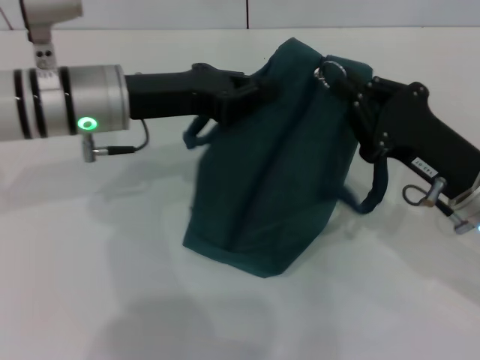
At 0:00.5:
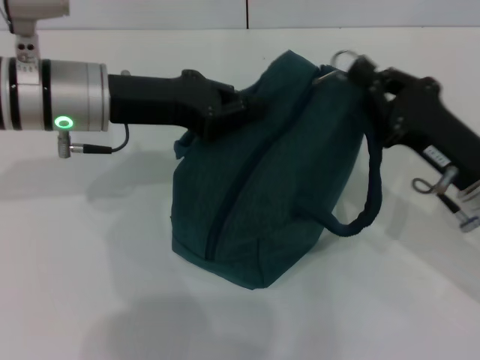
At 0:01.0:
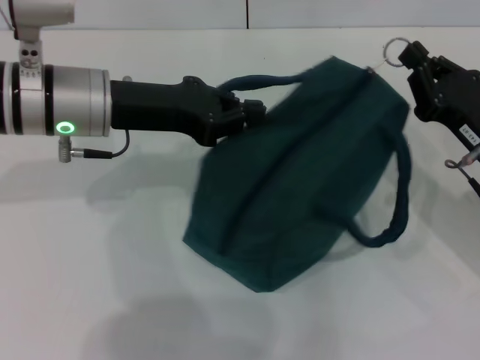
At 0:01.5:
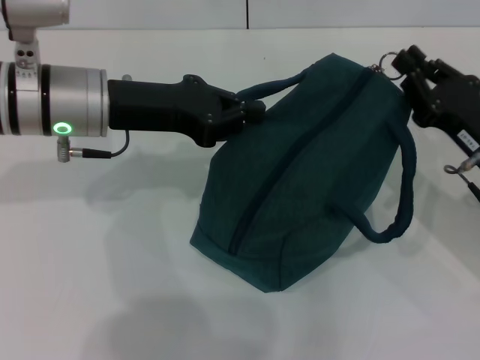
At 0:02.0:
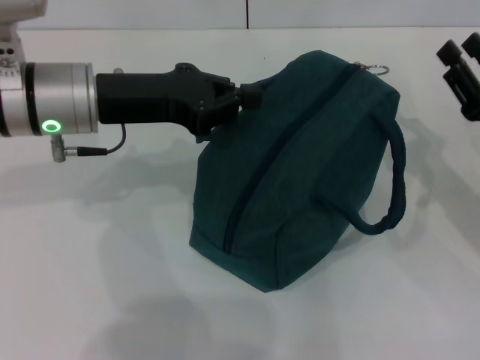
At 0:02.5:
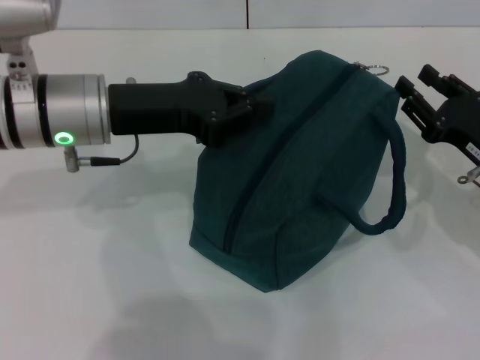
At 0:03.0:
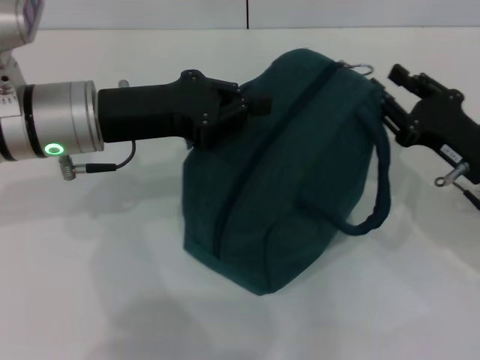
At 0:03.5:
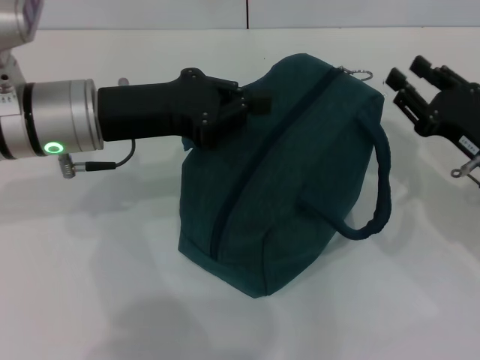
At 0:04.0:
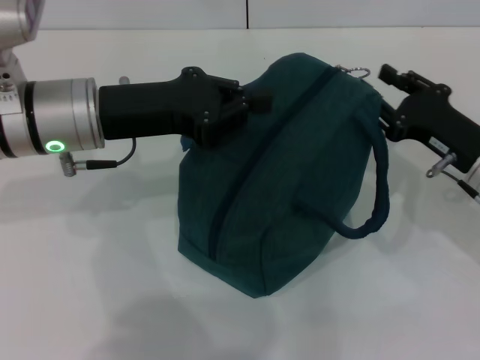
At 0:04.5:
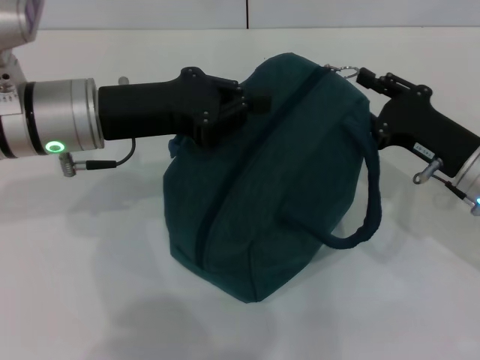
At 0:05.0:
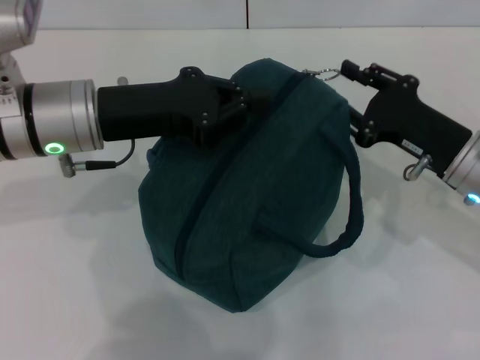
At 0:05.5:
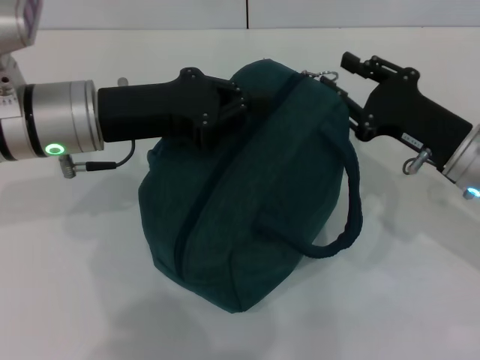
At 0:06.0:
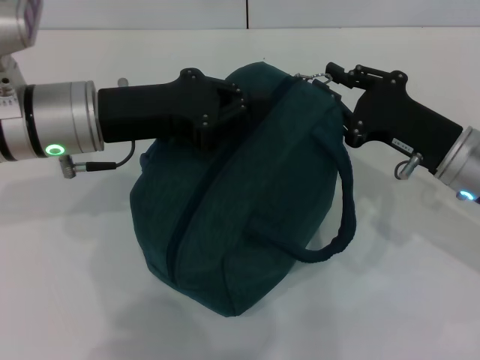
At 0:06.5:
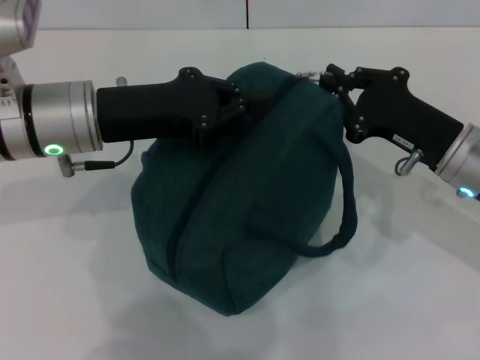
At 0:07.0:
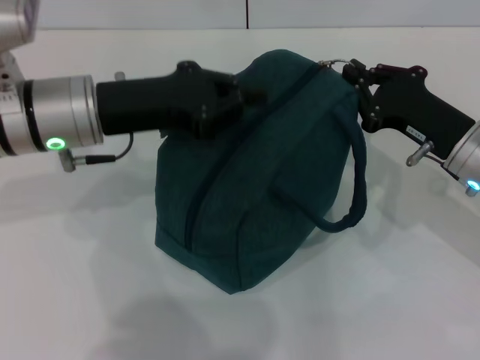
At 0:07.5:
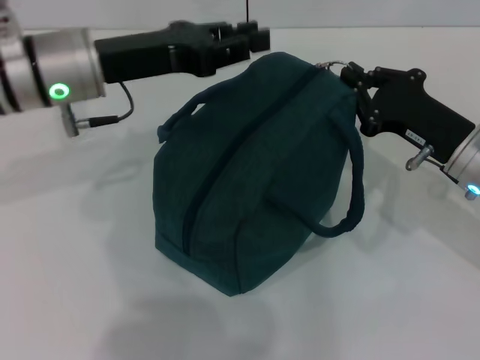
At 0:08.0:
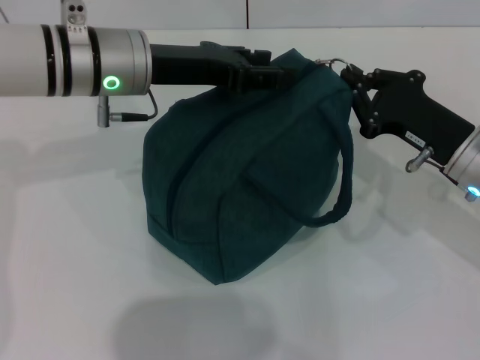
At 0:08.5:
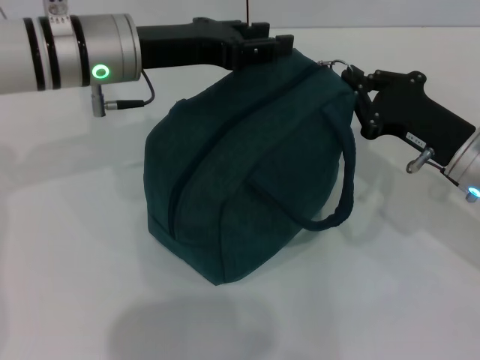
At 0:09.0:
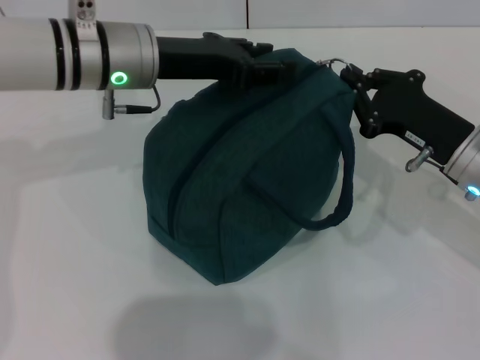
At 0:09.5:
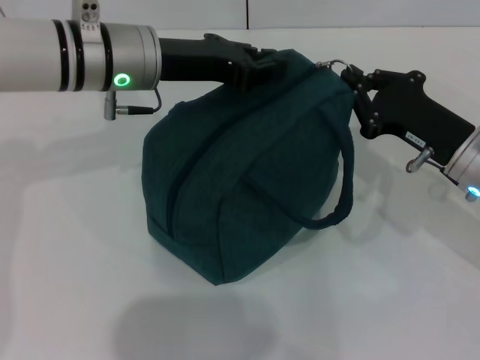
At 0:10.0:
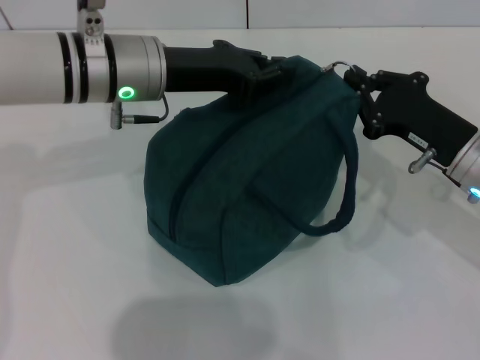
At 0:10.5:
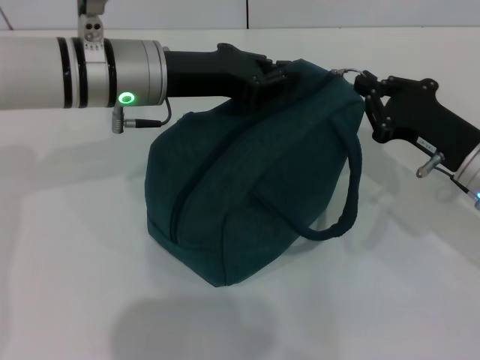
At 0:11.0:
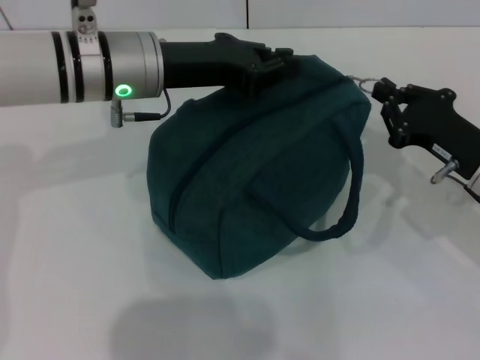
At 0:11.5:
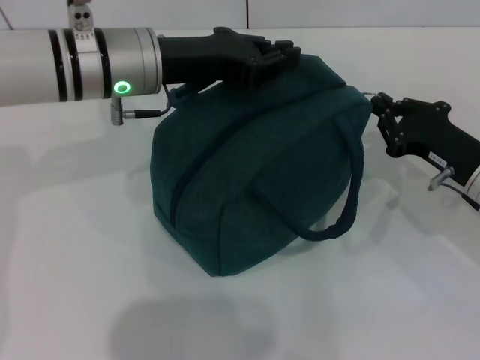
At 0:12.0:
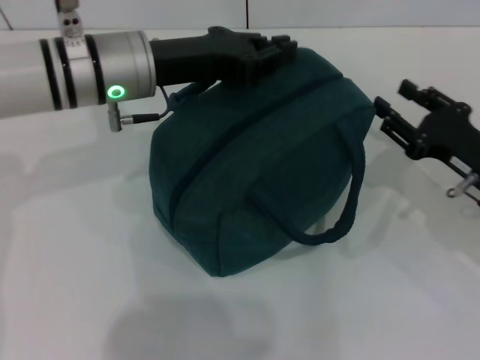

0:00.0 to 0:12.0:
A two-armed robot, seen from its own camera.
Step, 0:00.0 to 0:11.5: Zip up the lunch bag with your right hand.
0:00.0 to 0:02.0: The right gripper shifts about 5 cm to the right, and opens its fingers.
0:02.0 to 0:04.0: The right gripper moves about 5 cm.
0:04.0 to 0:06.0: The grippers make only small movements.
0:06.0 to 0:08.0: The right gripper closes. The left gripper is displaced forward by about 5 cm, and opens its fingers.
0:08.0 to 0:10.0: The left gripper closes its fingers.
0:10.0 to 0:12.0: The right gripper opens up.

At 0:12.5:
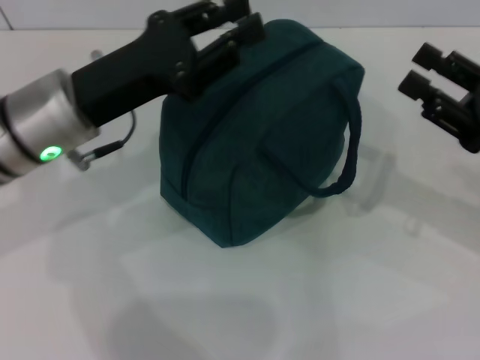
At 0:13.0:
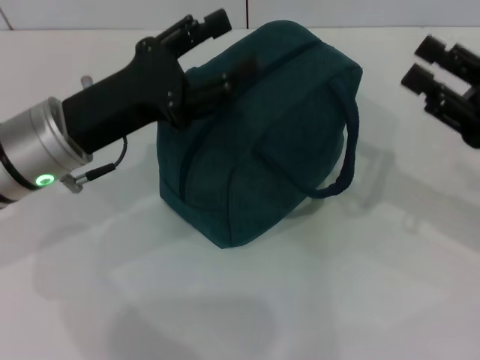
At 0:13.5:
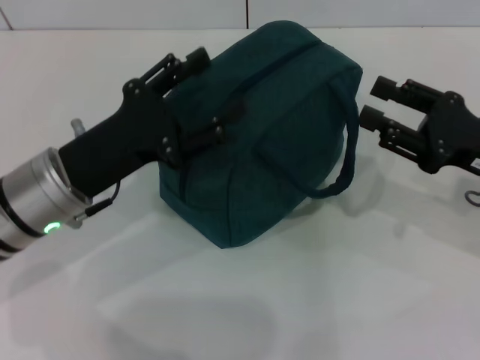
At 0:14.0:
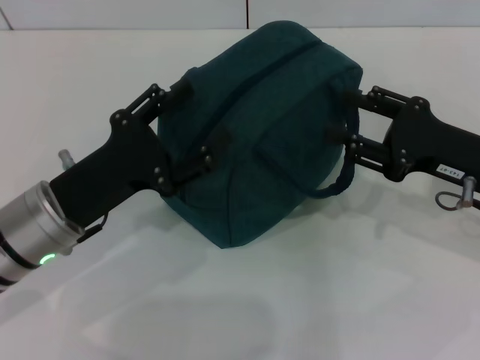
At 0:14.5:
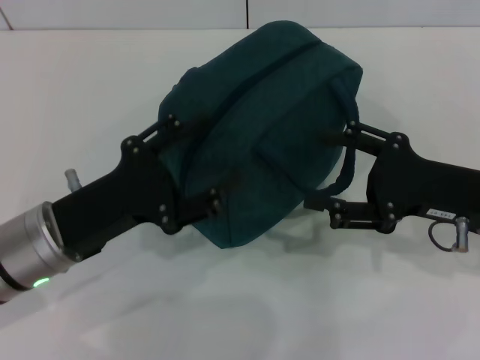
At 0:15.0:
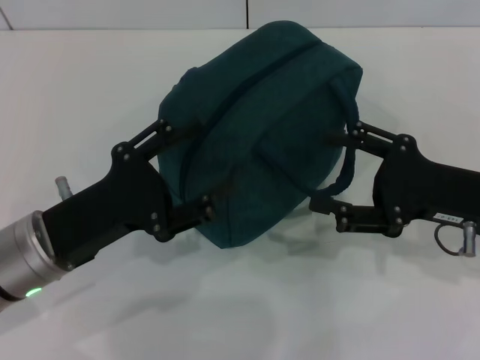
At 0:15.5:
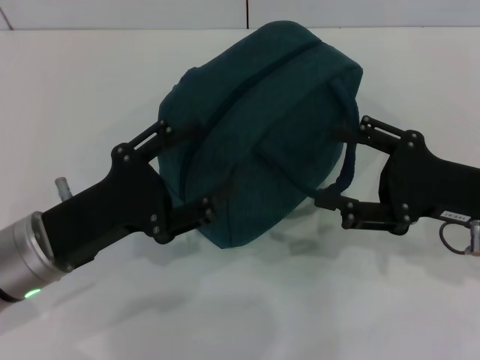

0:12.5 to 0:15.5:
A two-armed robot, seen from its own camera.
0:12.5 to 0:14.0: The left gripper goes roughly 10 cm downward and backward, and opens.
0:14.0 to 0:15.5: The grippers move only a little.

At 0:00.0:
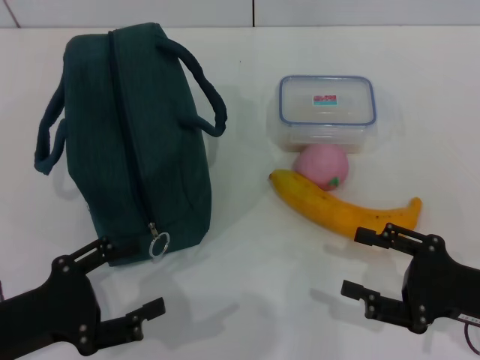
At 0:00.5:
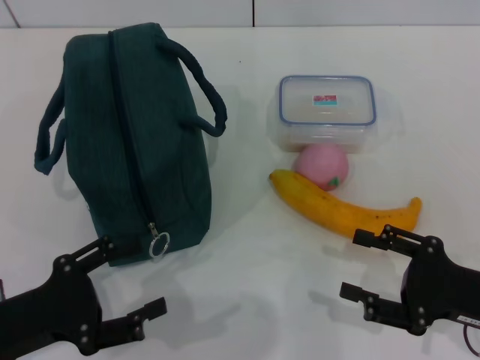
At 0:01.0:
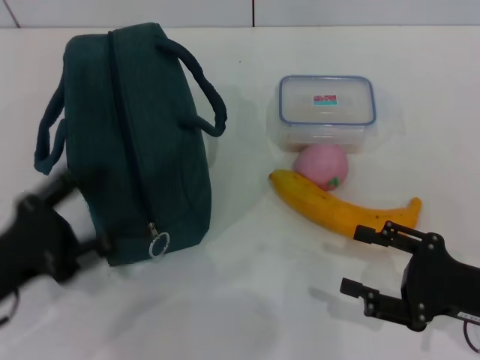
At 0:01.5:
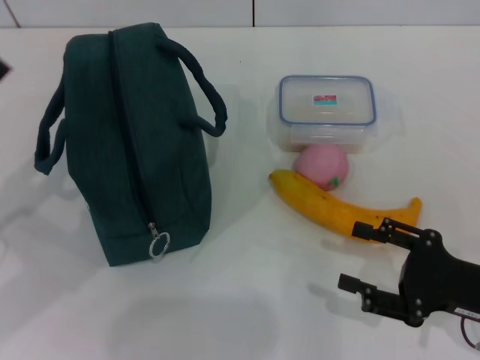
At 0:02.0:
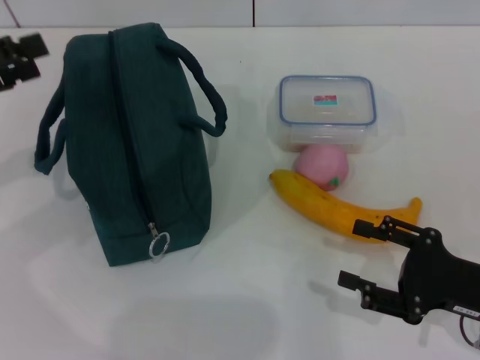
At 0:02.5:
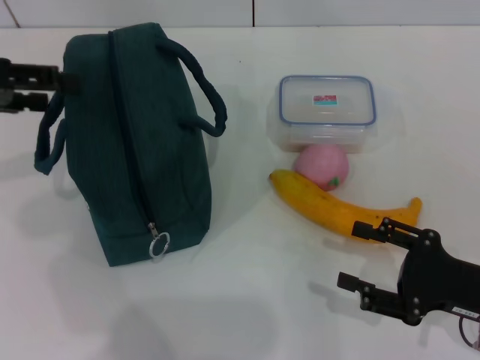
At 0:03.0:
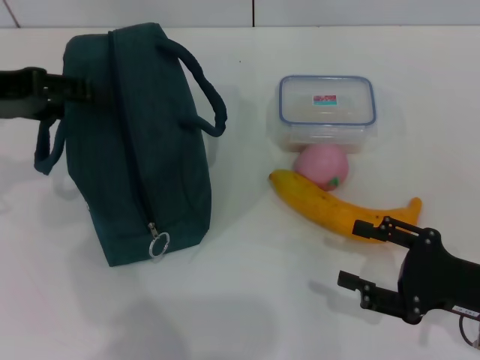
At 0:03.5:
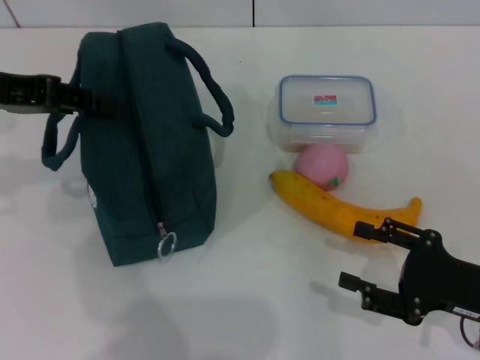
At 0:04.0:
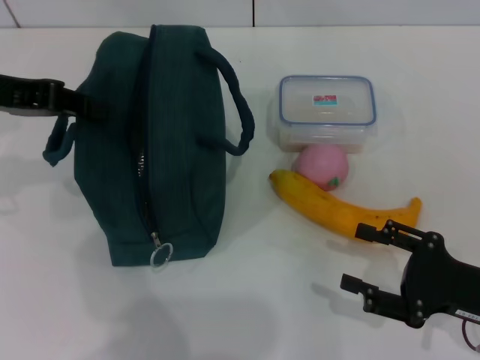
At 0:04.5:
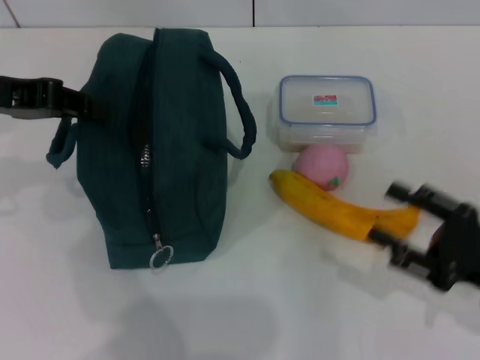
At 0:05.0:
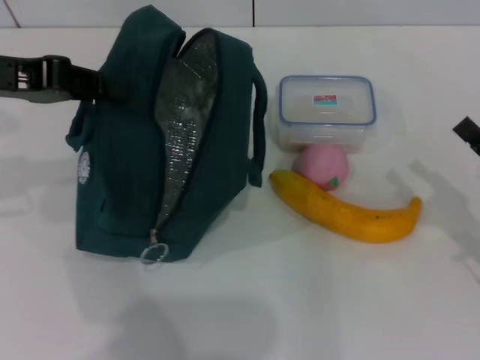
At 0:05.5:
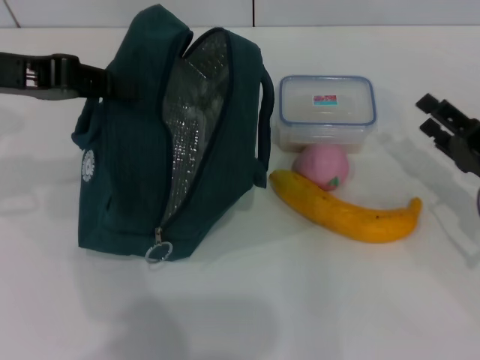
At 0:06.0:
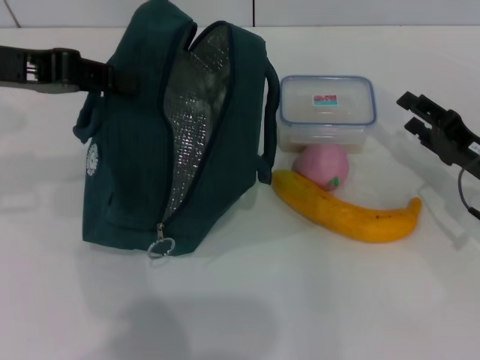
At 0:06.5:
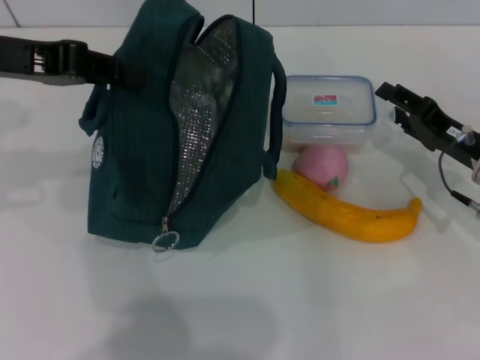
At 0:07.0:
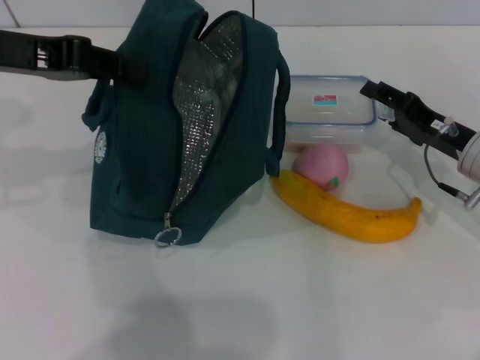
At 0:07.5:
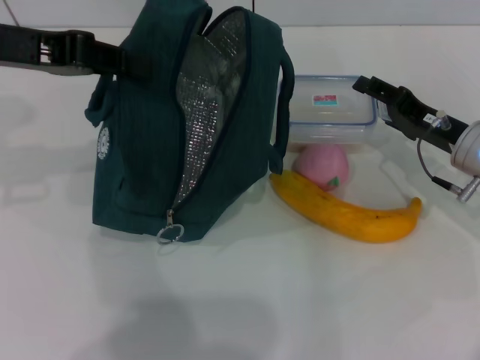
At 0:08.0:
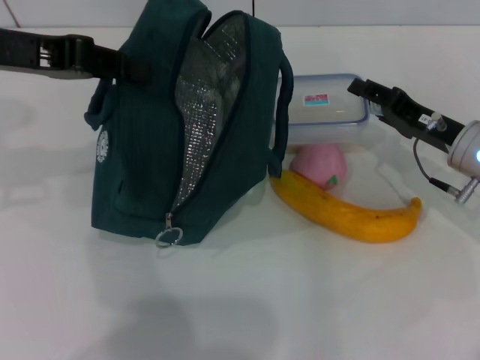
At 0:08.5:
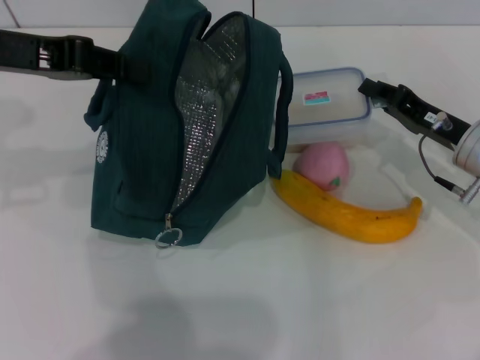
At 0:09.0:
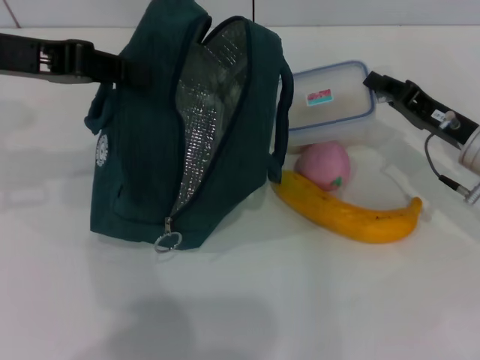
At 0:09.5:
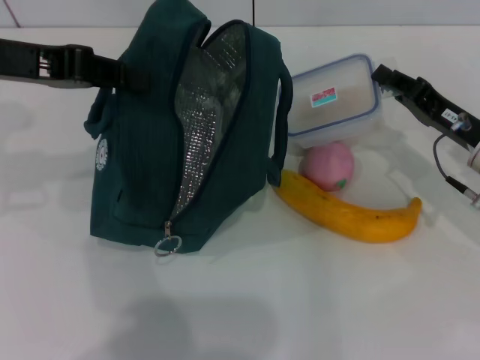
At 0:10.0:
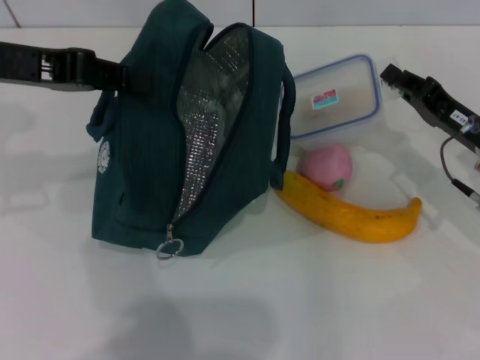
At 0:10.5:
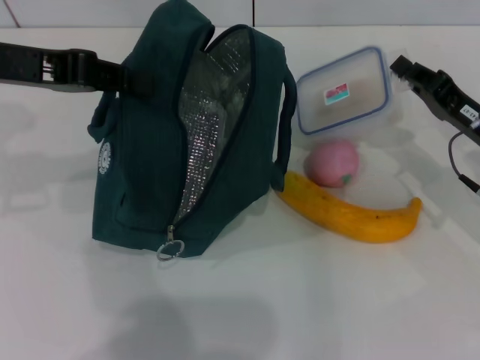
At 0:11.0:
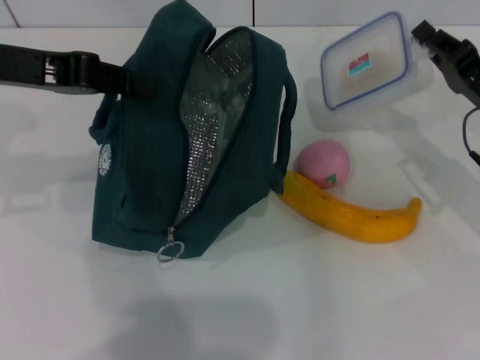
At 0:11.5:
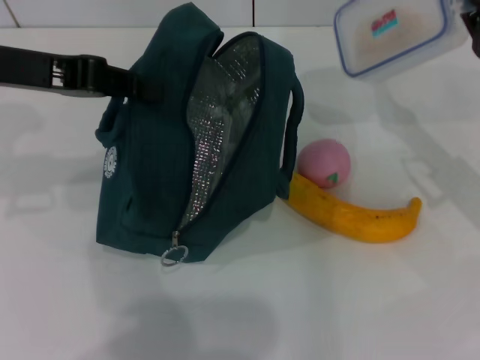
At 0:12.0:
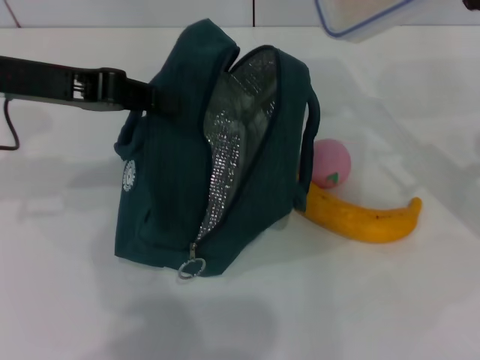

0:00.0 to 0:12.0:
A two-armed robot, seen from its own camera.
Step, 0:00.0 to 0:04.0: Hold the lunch bag with your left hand.
Step, 0:04.5 to 0:09.0: Pick up the lunch box with your right hand.
0:00.0 to 0:02.0: The left gripper heads upward, forward and to the left, covering roughly 20 cm.
0:02.0 to 0:04.0: The left gripper heads to the right, covering approximately 5 cm, and closes its fingers.
0:04.0 to 0:06.0: The right gripper heads forward, covering approximately 10 cm.
0:06.0 to 0:08.0: The right gripper moves about 5 cm.
0:08.0 to 0:10.0: The right gripper closes up.
0:10.0 to 0:12.0: The right gripper shifts roughly 10 cm upward.
